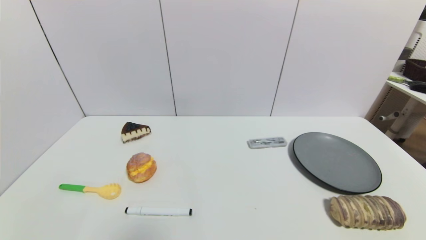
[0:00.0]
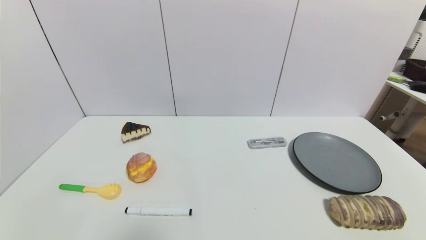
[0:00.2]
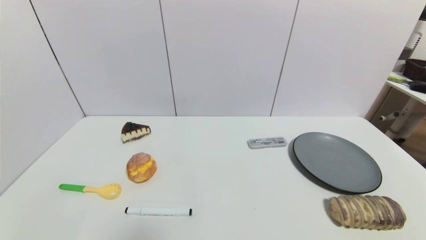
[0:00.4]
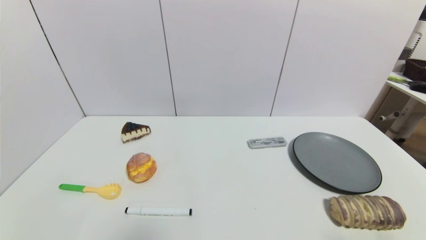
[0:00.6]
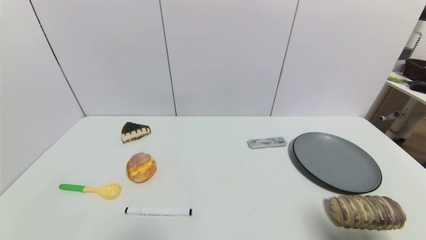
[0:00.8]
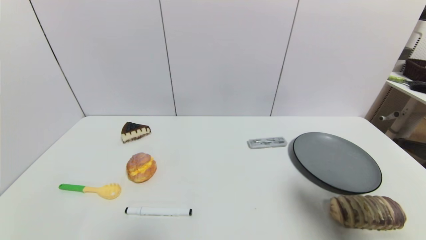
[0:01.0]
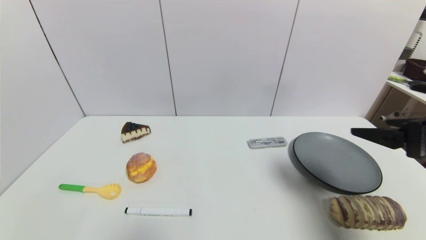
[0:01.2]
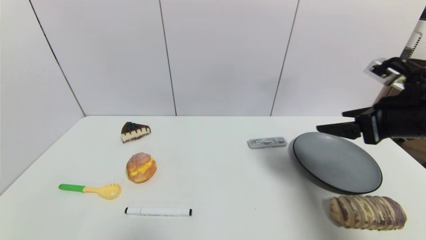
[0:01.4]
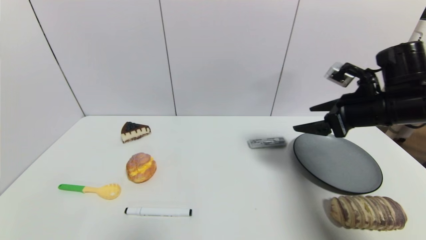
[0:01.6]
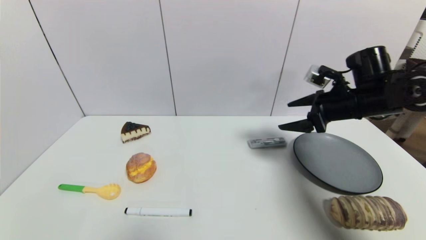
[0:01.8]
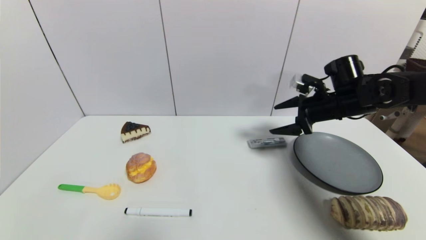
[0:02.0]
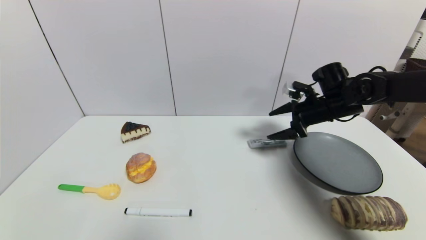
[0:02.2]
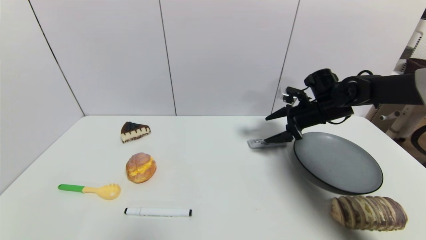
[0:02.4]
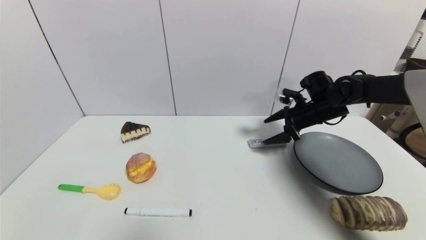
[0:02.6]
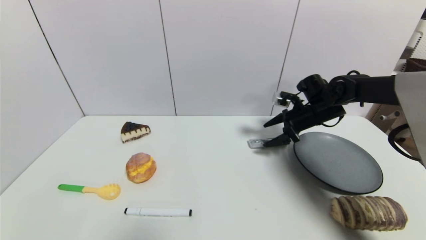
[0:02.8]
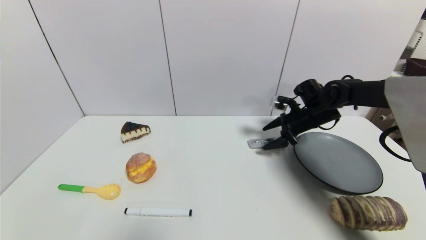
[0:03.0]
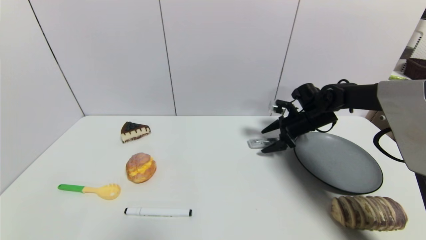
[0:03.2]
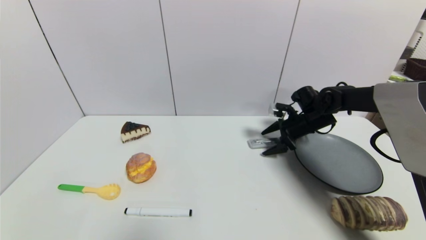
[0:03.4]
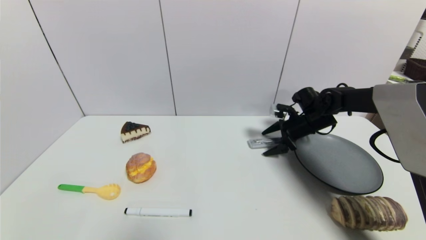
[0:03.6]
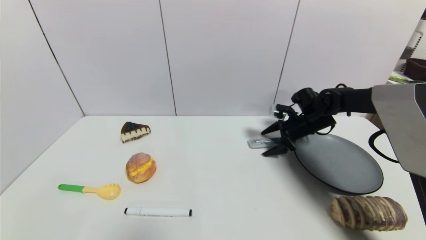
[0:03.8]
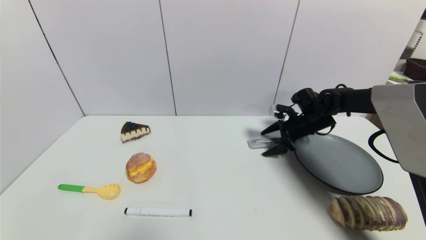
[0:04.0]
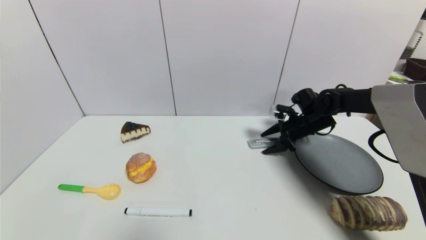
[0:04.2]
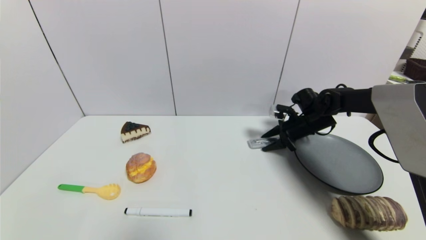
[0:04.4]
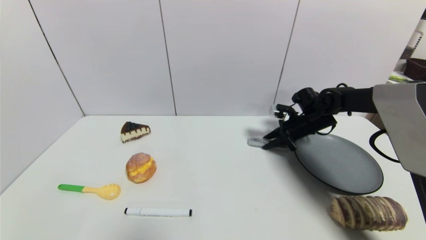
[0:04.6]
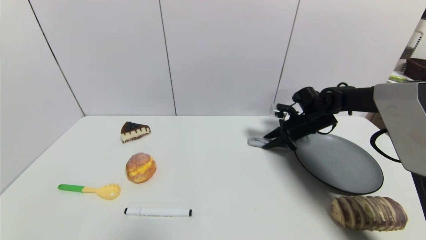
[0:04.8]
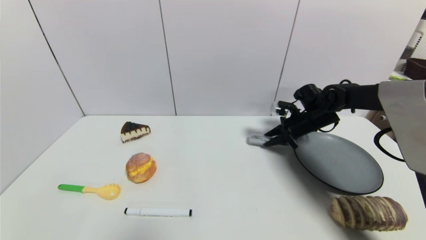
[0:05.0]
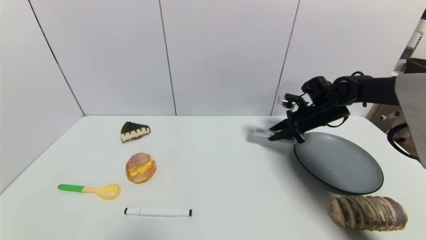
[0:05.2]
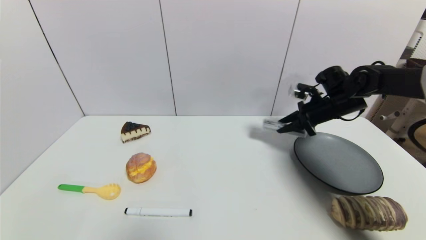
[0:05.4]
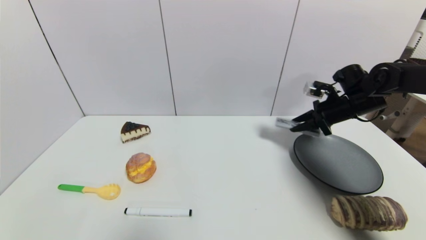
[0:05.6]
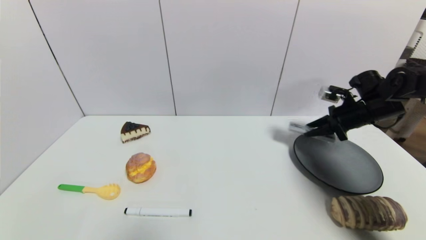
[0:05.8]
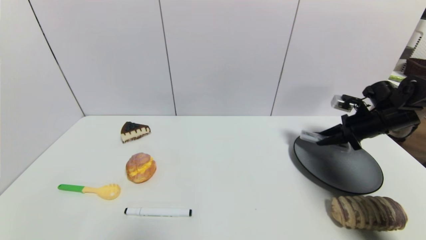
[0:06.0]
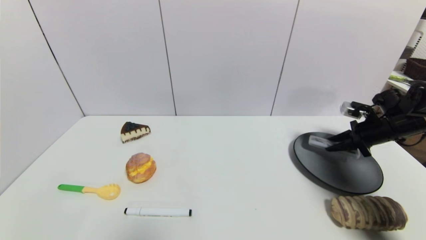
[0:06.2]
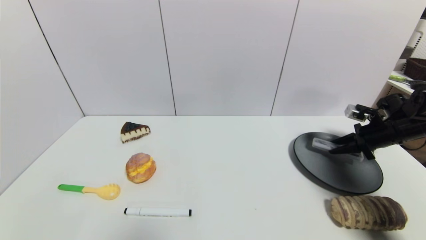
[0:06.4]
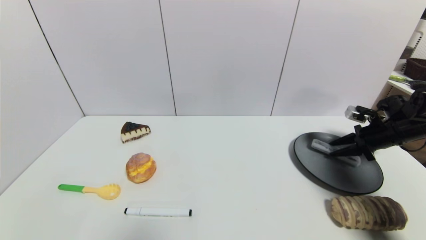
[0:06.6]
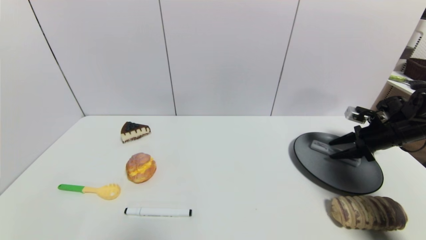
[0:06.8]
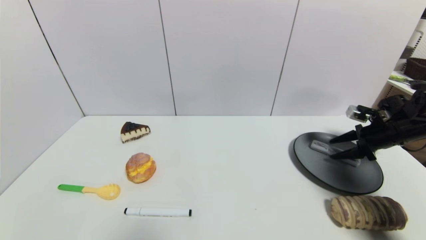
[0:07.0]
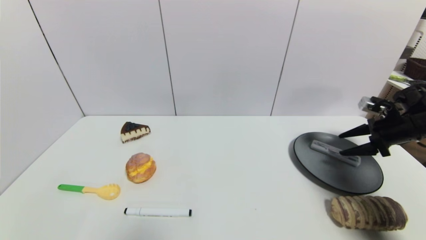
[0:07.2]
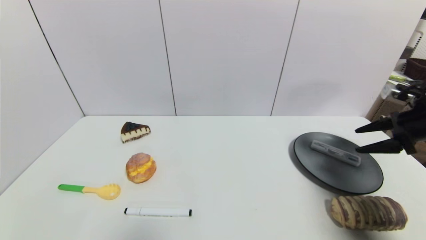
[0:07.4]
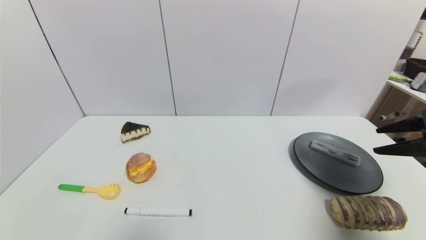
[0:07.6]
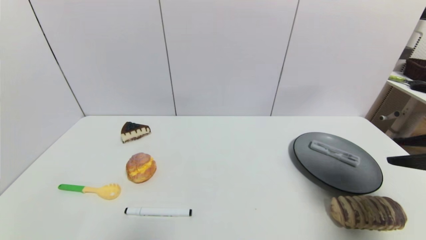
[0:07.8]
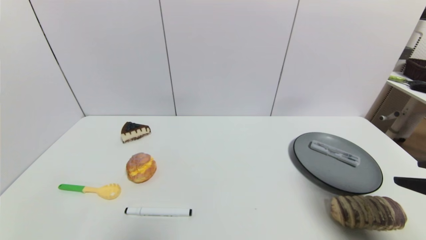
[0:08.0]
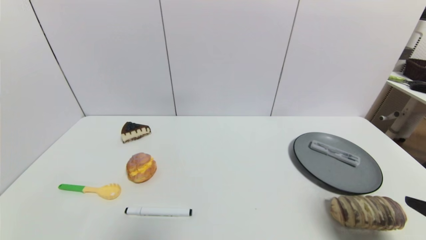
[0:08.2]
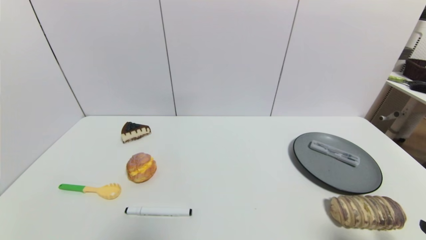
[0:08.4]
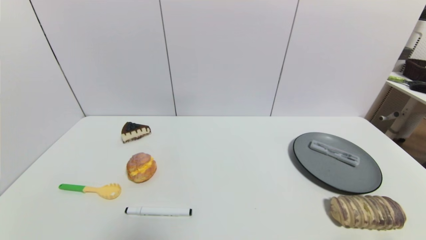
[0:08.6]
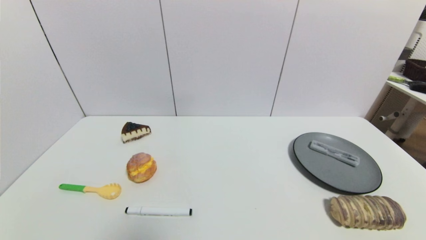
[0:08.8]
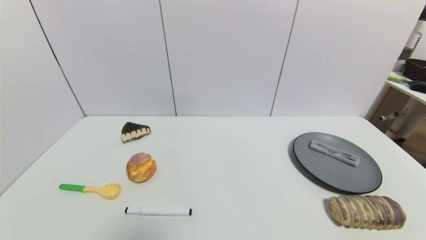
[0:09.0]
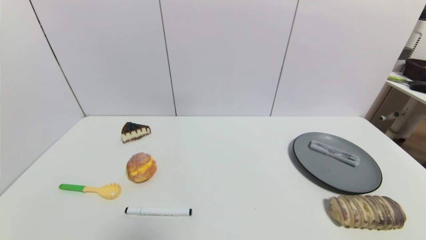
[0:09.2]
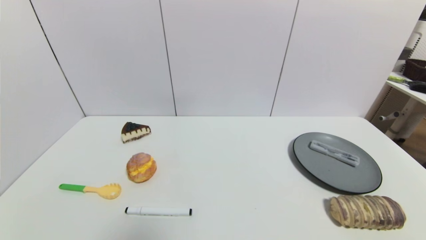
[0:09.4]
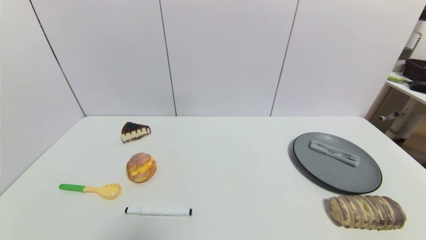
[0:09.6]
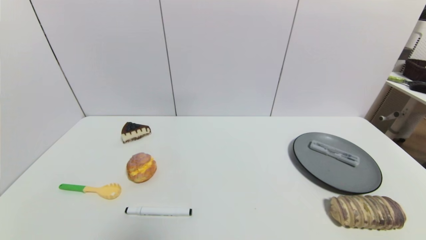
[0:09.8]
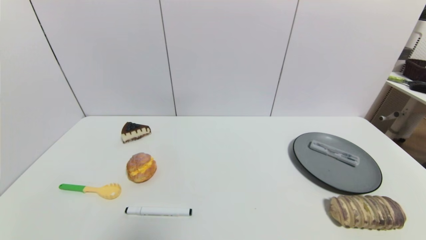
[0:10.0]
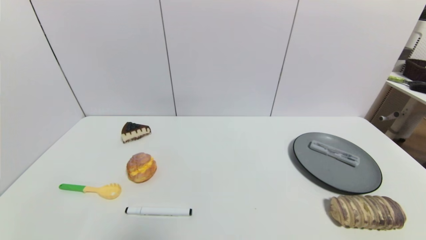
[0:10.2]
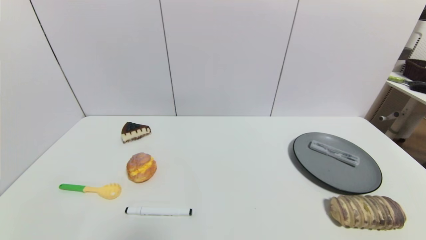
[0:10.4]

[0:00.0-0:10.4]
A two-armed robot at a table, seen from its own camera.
Task of the whole recording: use a gripper to pick the target object and place on the gray plate.
Step, 0:00.0 to 0:04.6: Grasp the compasses with the right gripper.
Step, 0:04.8 to 0:07.0: Place the compasses on the gray plate with the right gripper.
0:00.0 to 0:01.4: The right gripper travels forward and upward by about 30 cm.
0:01.4 to 0:03.0: The right gripper is displaced forward and downward by roughly 25 cm.
0:03.0 to 0:04.4: The right gripper closes up.
0:04.4 to 0:06.0: The right gripper goes about 15 cm to the right and backward, and closes.
0:06.0 to 0:07.4: The right gripper travels backward and upward by approximately 10 cm, and opens.
0:07.4 to 0:09.0: The right gripper heads backward, covering roughly 30 cm.

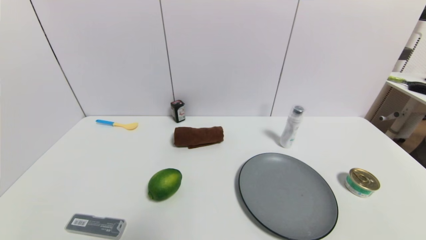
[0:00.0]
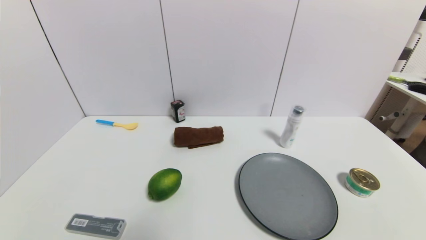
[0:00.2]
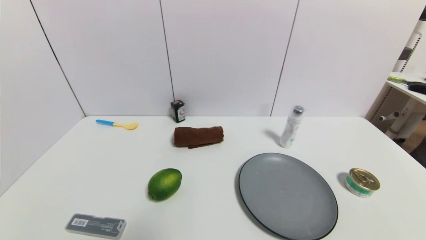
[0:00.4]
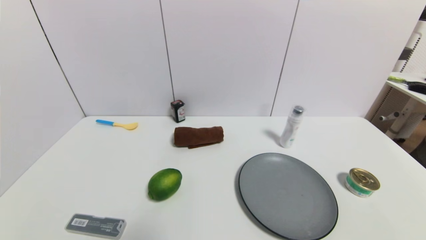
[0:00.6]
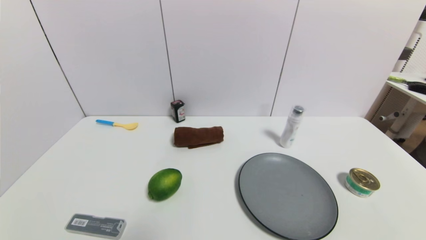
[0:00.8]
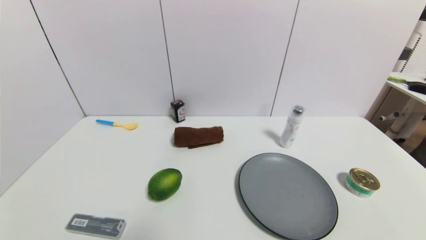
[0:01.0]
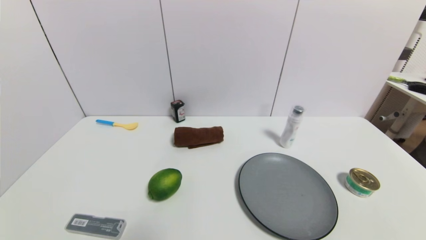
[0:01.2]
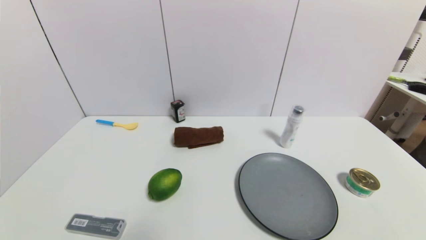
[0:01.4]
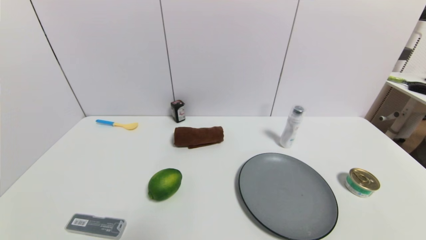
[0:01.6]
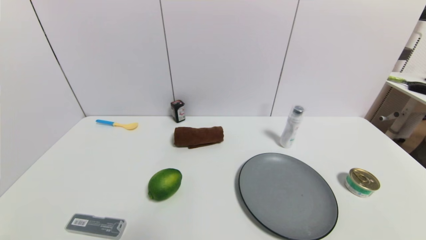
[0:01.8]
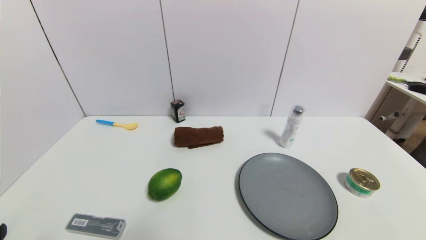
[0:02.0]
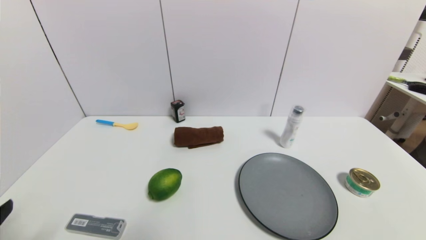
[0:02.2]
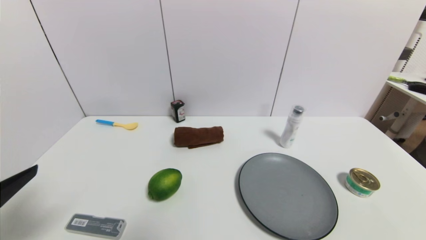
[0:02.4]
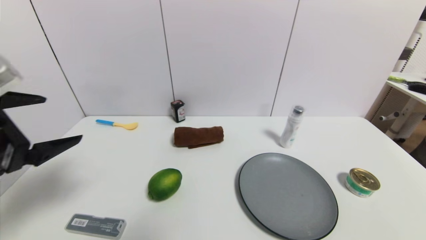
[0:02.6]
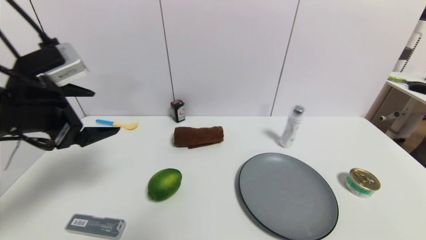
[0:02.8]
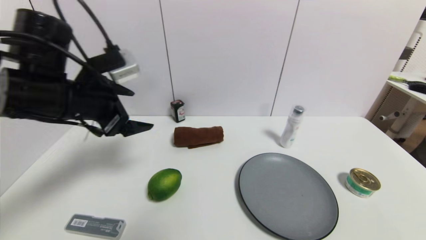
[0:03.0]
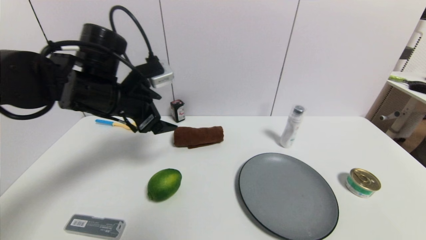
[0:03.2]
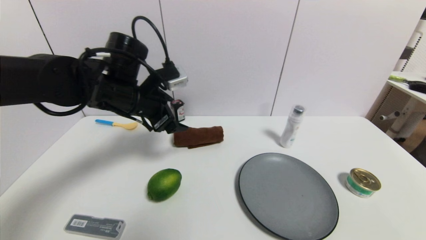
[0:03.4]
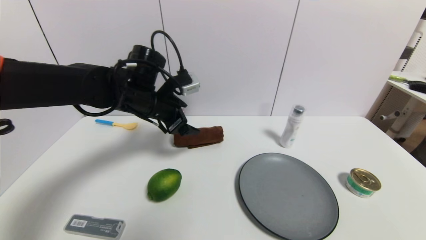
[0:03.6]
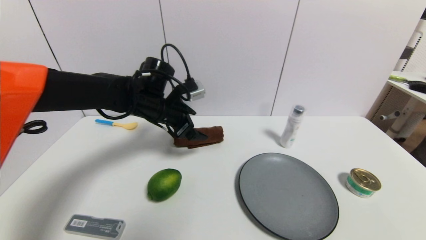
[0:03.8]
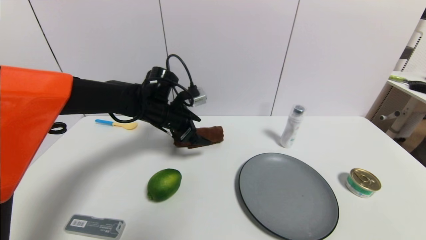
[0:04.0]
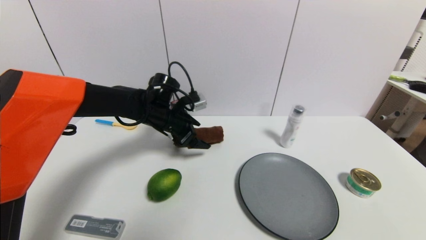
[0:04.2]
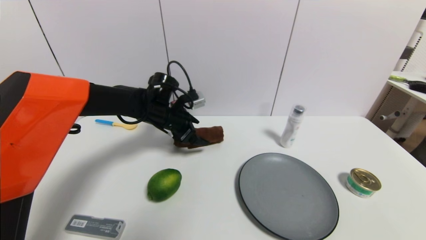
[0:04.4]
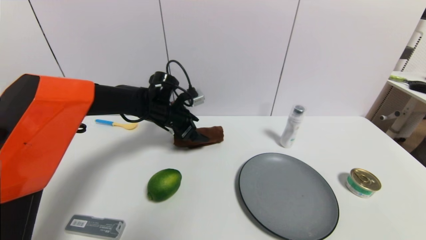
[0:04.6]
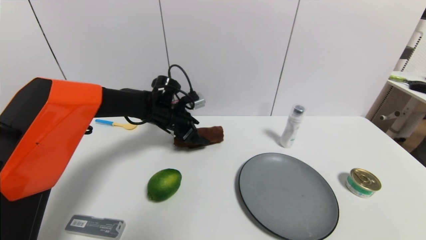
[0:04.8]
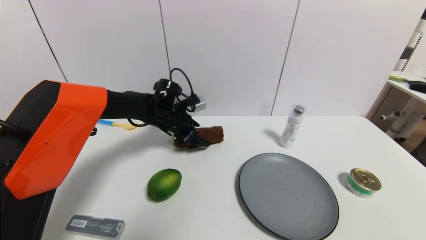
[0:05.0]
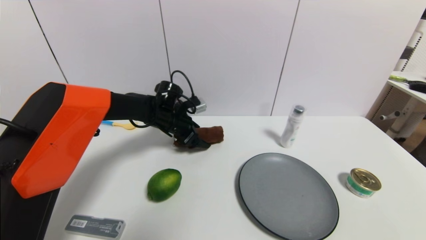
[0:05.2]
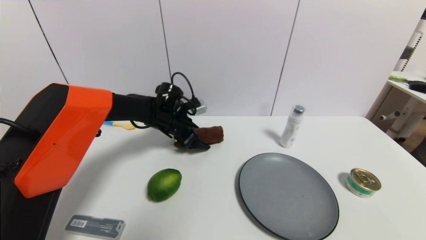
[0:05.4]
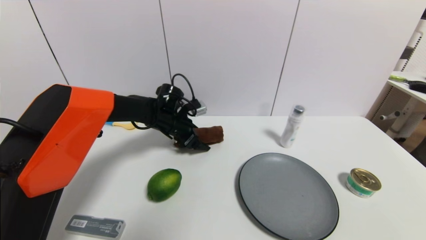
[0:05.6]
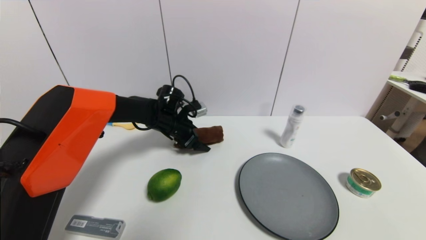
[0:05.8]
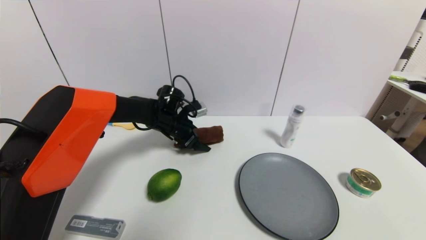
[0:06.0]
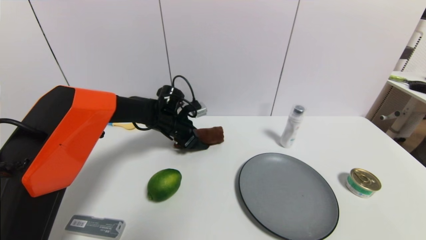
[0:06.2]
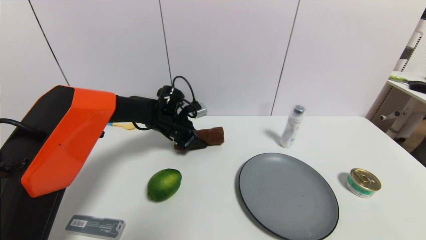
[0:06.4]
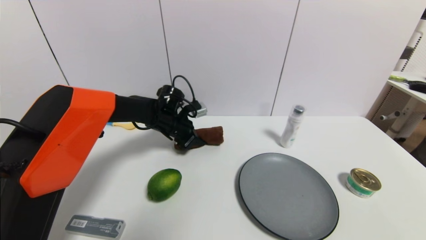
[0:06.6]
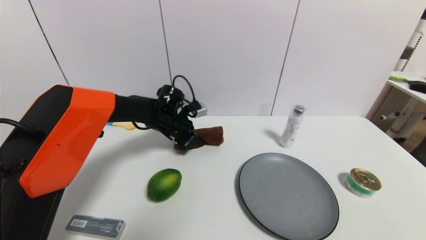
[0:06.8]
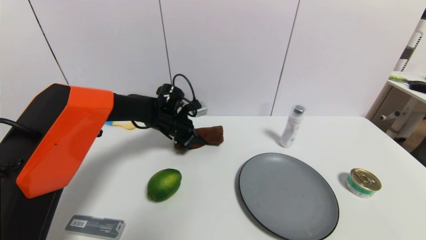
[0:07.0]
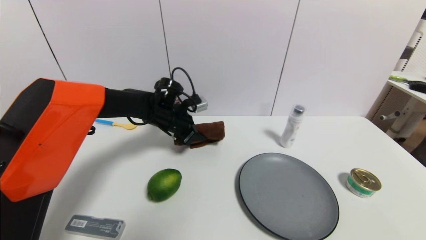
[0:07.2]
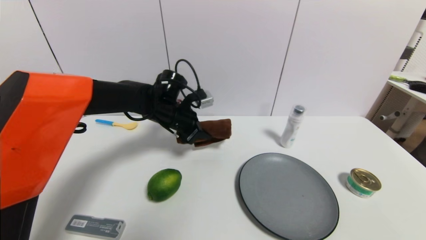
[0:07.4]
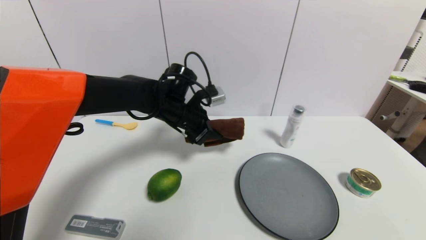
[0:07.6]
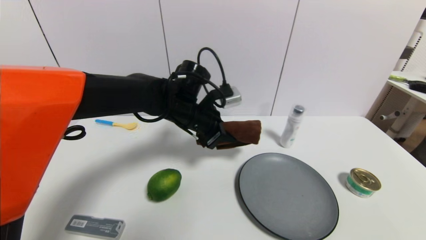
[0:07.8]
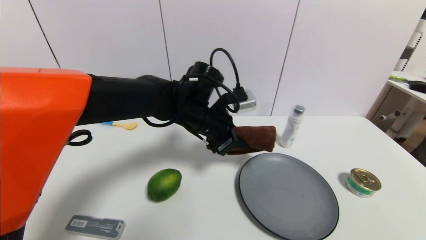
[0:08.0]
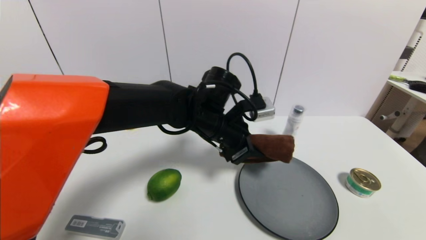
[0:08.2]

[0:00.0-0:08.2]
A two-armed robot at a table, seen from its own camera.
Task of the whole recording: use a gripper to pick the target object and place on the gray plate.
Step, 0:00.0 to 0:06.8: Grasp the brown towel with the left gripper.
0:01.6 to 0:03.2: The left gripper goes roughly 35 cm forward and upward.
0:03.2 to 0:05.0: The left gripper is displaced forward, downward and to the right by about 20 cm.
0:05.0 to 0:06.6: The left gripper closes its fingers.
0:06.6 to 0:08.2: The left gripper shifts approximately 20 cm to the right, backward and upward.
